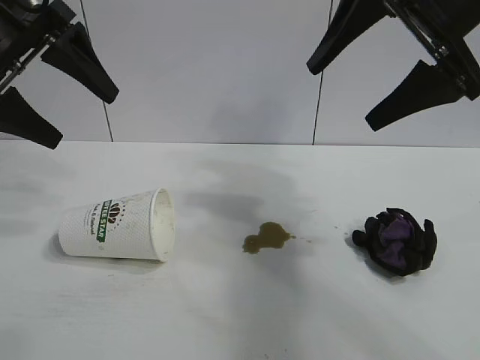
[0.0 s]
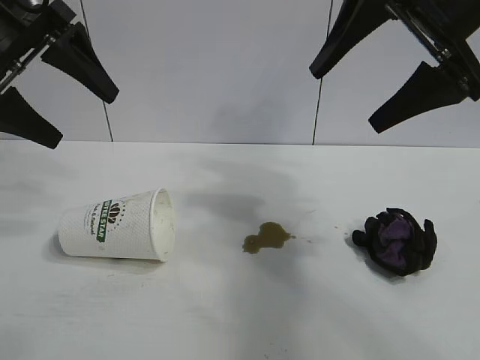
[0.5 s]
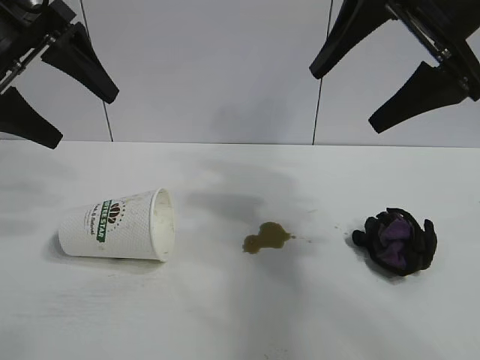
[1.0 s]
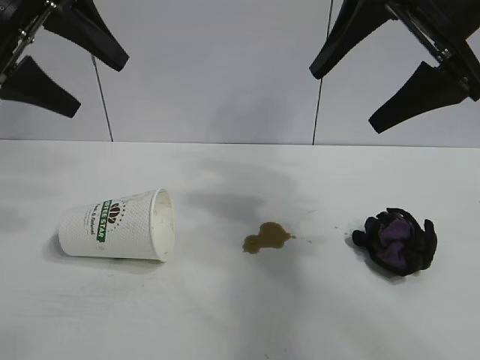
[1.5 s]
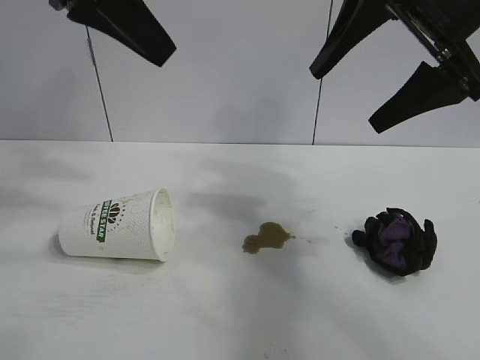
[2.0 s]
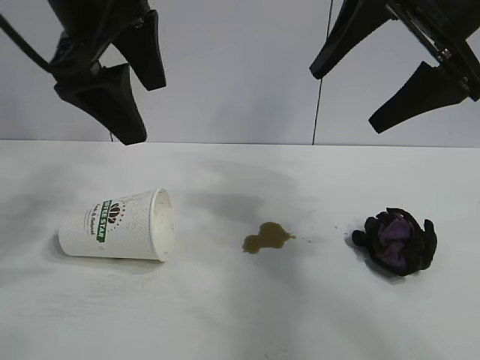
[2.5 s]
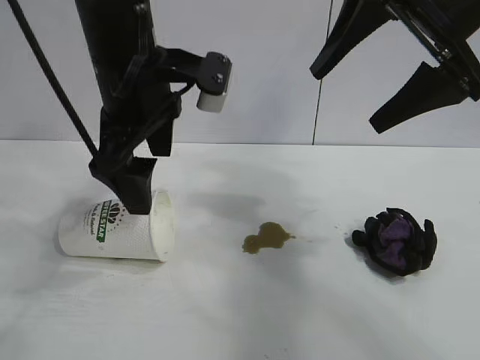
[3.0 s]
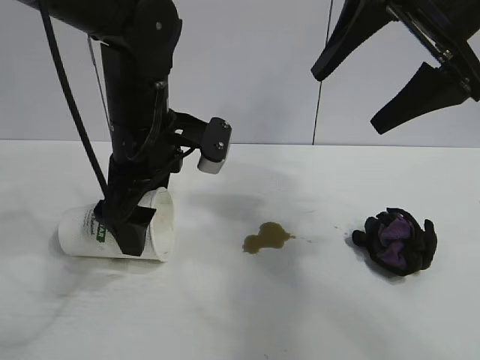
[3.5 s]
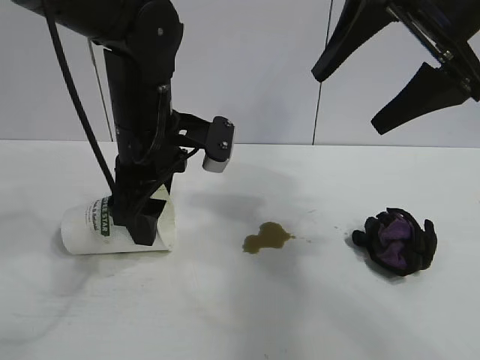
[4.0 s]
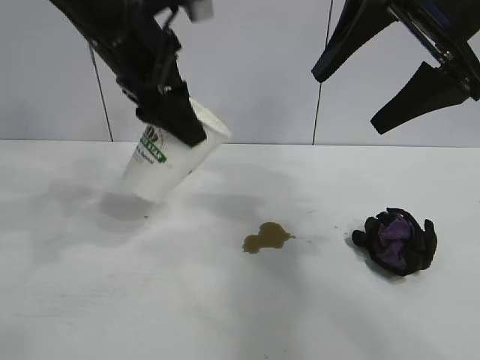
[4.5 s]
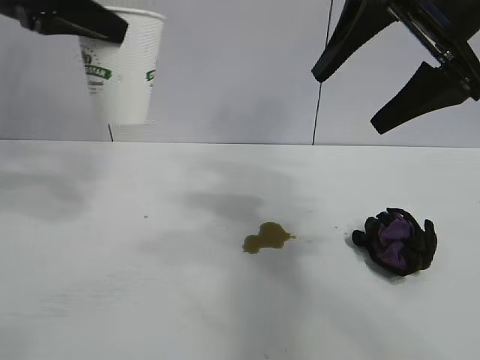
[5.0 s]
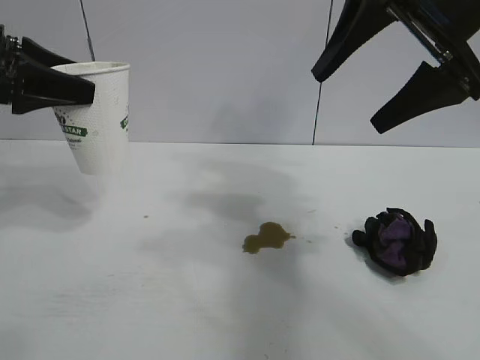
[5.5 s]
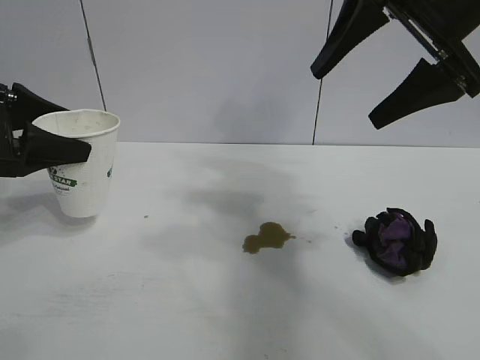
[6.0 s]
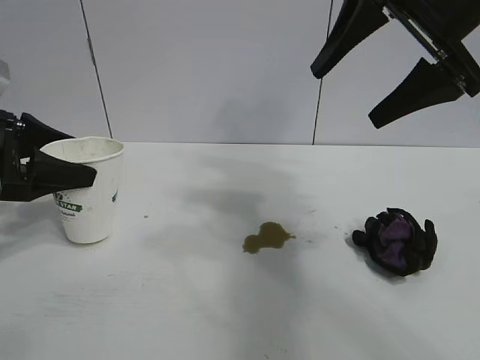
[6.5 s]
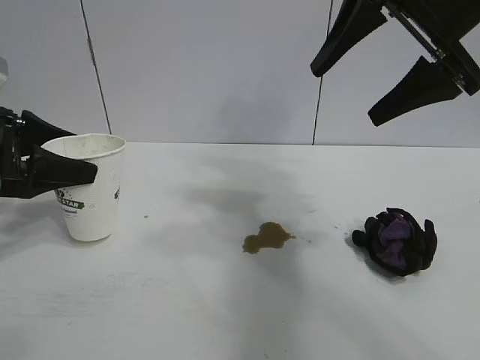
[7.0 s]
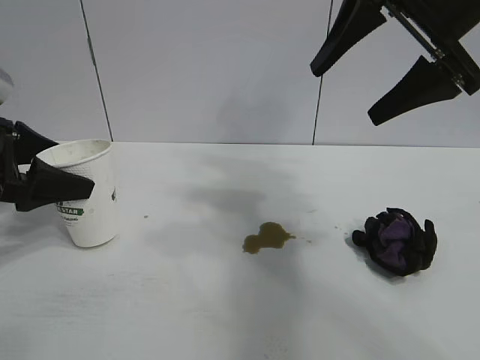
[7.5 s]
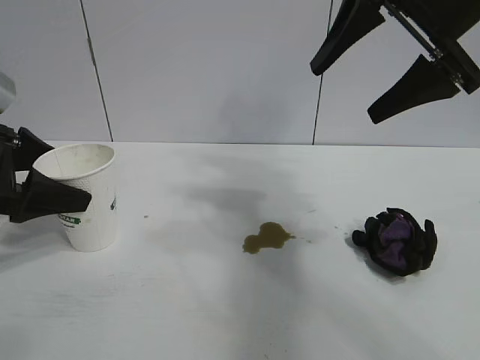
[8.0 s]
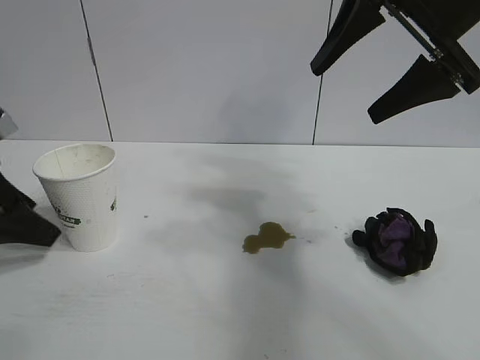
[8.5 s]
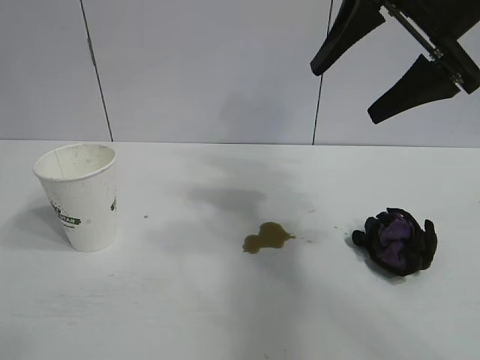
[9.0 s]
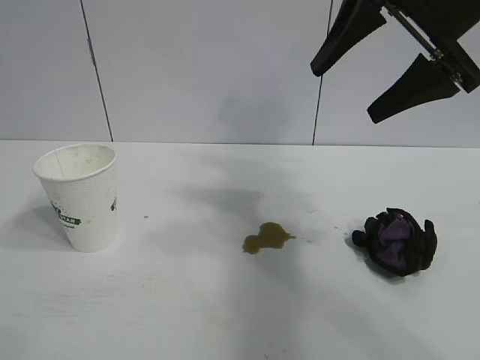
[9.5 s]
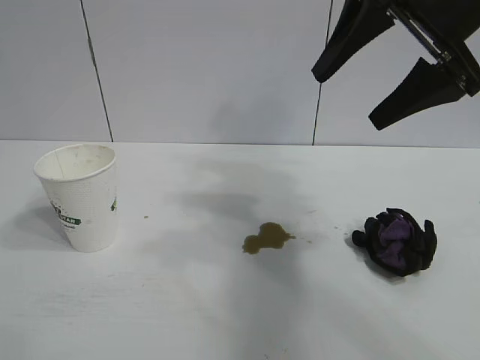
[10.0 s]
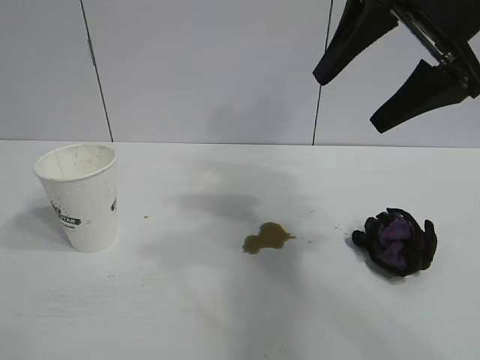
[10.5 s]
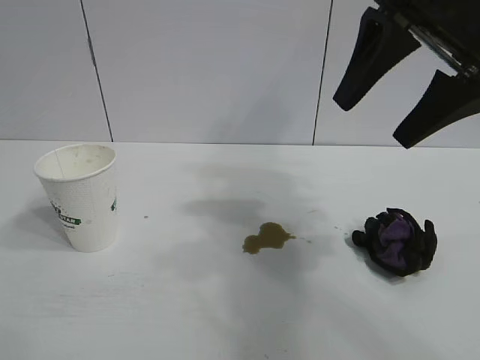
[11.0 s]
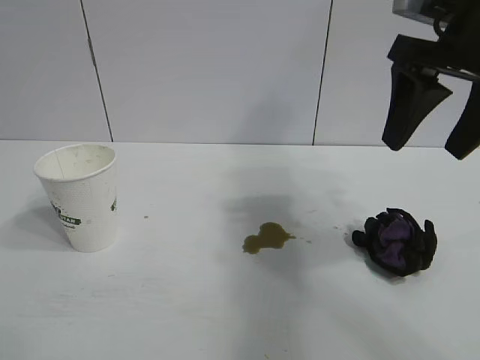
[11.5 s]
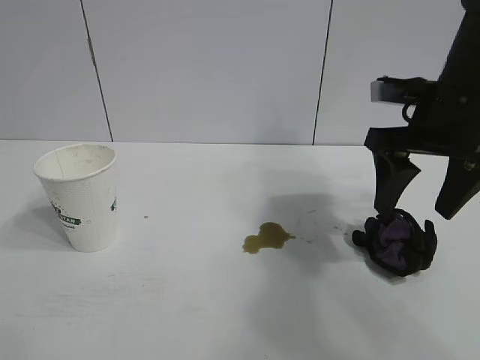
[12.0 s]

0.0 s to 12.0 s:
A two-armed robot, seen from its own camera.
Task of the whole recording: the left gripper pick up the fallen cup and place it upright, the right gripper grasp the black rag and wipe the stain on the table, the right gripper put the black rag back in its original position.
Step, 1.5 to 4.0 s: Grasp the paper cup with left gripper.
Step, 4.5 to 8.0 s: Stand the paper cup upright with left gripper.

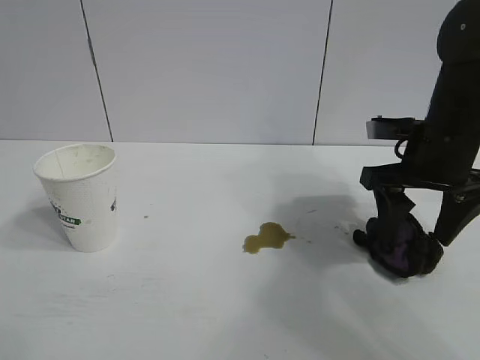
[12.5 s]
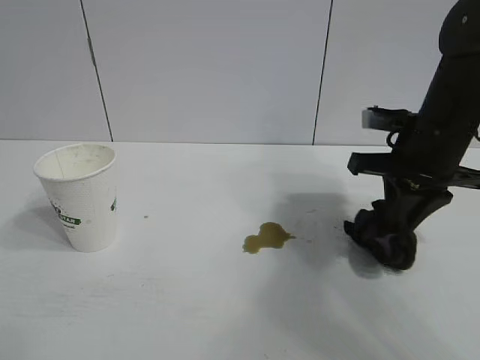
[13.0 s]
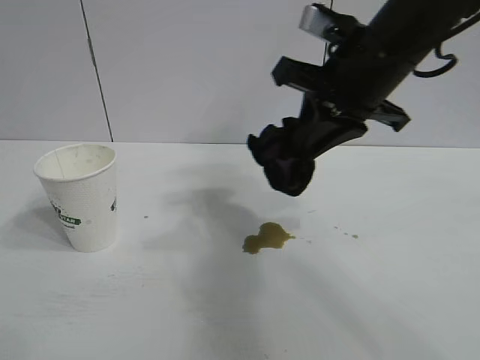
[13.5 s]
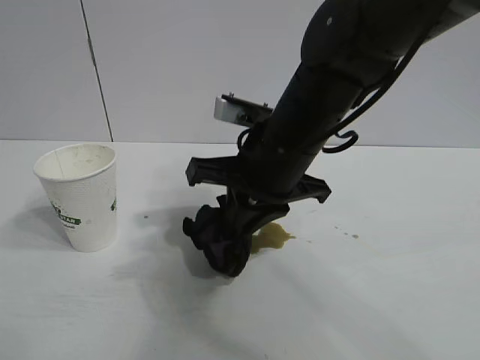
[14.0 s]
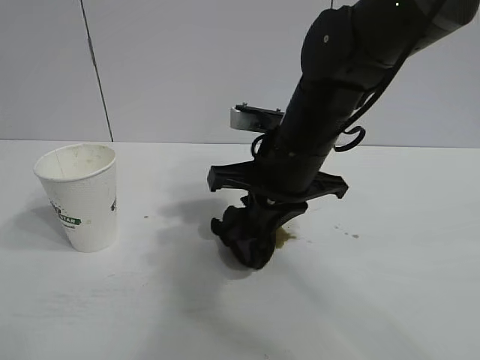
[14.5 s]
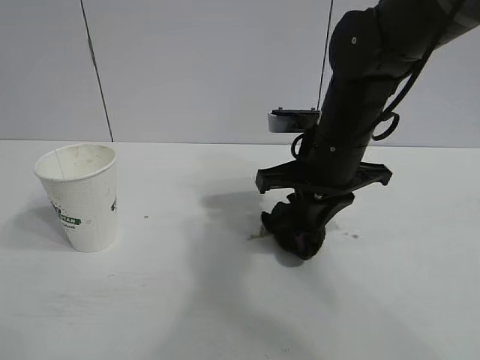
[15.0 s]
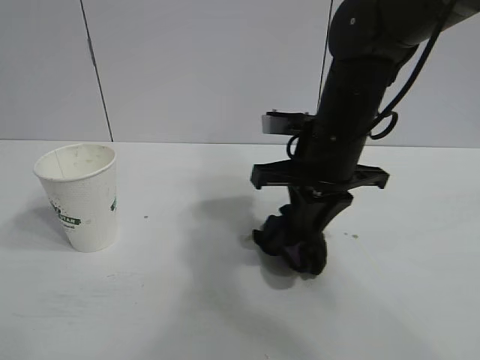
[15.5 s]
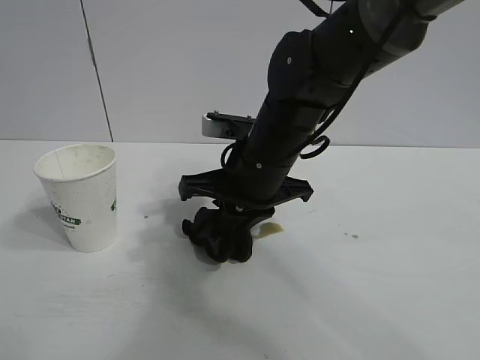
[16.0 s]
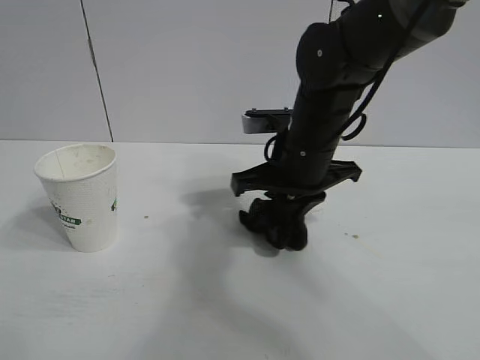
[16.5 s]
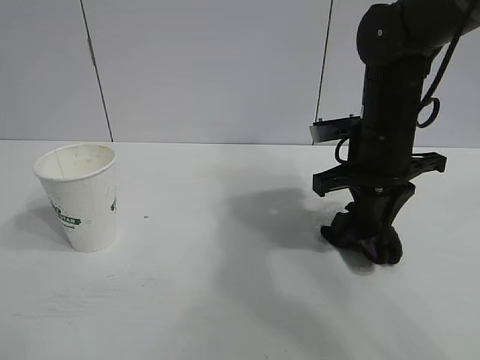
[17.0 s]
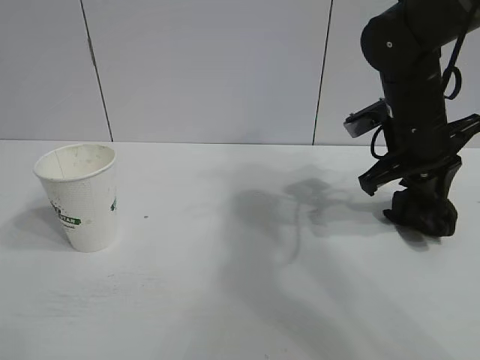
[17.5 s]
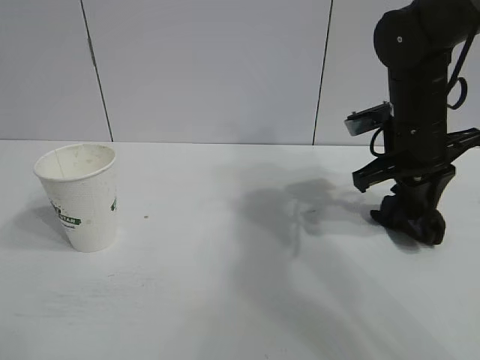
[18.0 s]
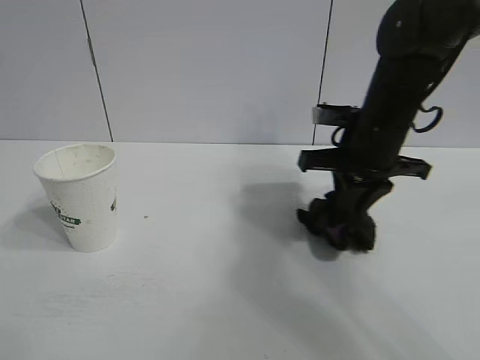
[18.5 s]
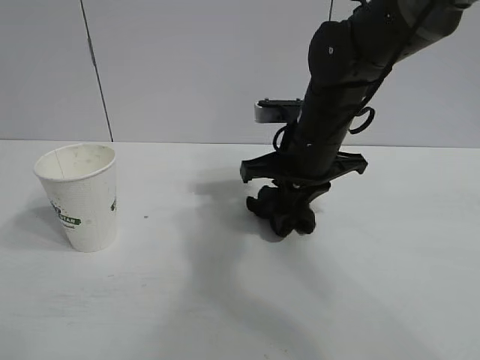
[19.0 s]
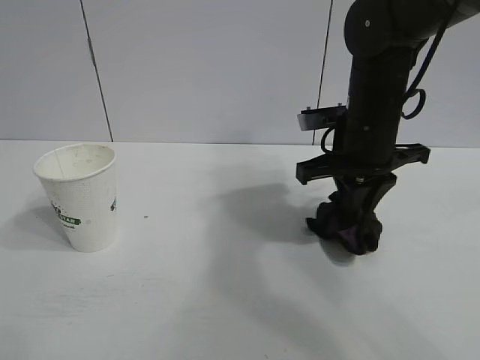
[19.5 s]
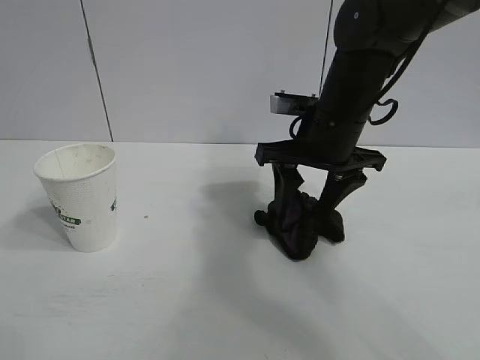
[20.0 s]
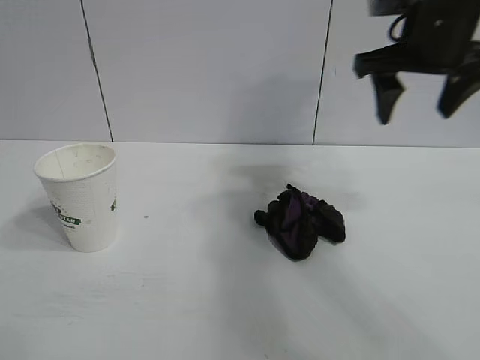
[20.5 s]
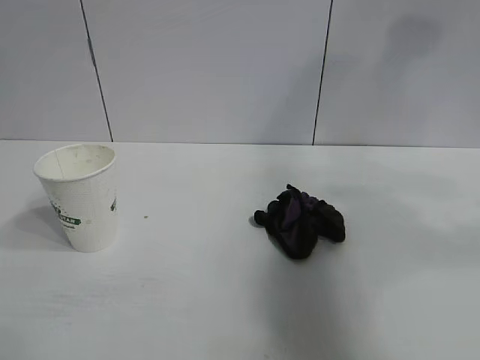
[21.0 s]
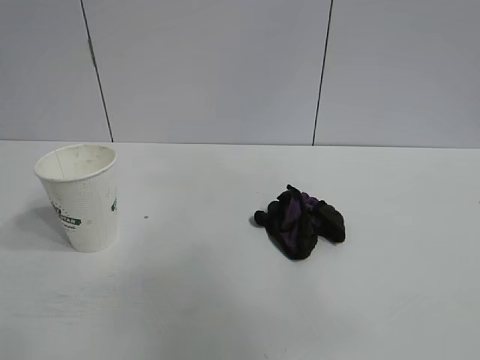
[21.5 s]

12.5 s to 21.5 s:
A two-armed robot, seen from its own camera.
Task of the whole recording: the left gripper pick up the fallen cup and place it upright, the right gripper grasp the black rag and wipe the stain on the table, the right gripper put the black rag back in its original position.
Step, 13.0 to 19.0 s: Wipe the stains off the table with the rag with right gripper.

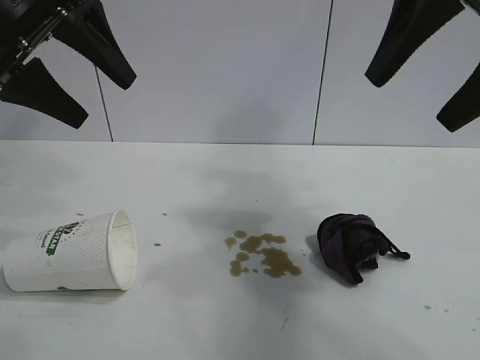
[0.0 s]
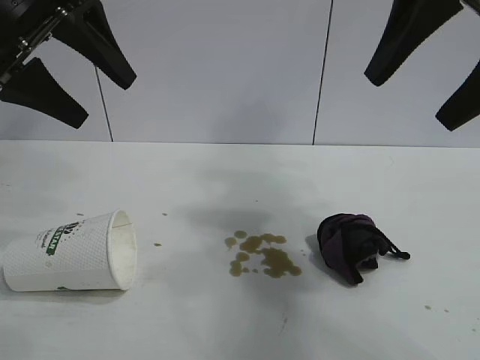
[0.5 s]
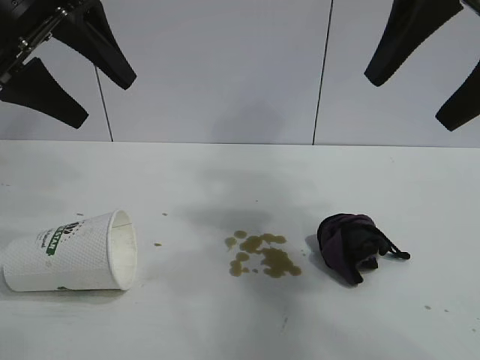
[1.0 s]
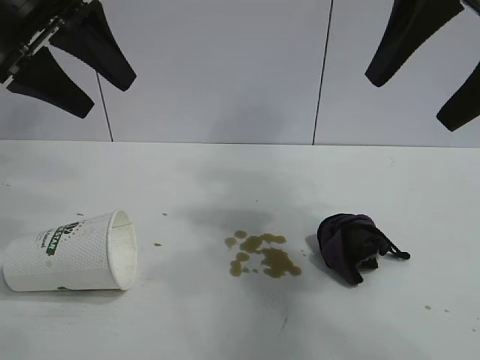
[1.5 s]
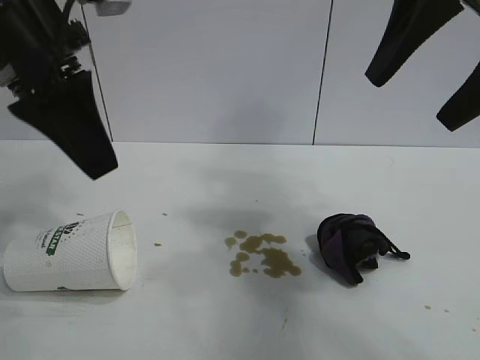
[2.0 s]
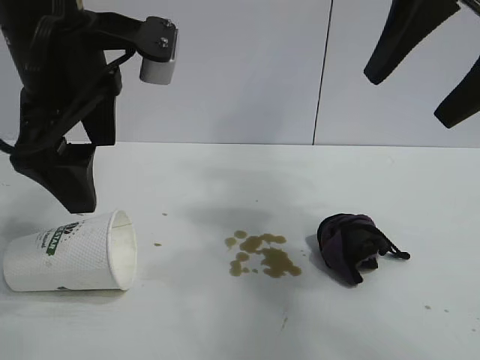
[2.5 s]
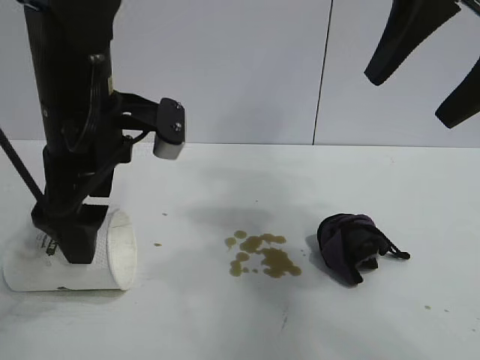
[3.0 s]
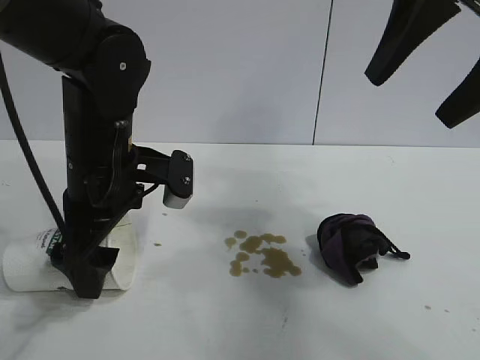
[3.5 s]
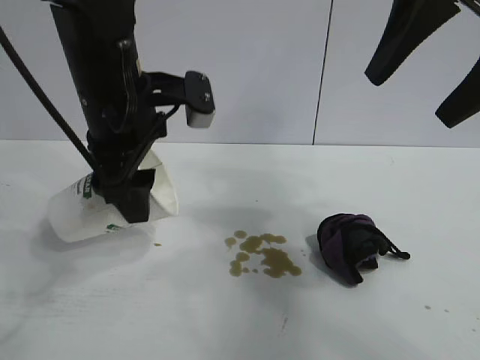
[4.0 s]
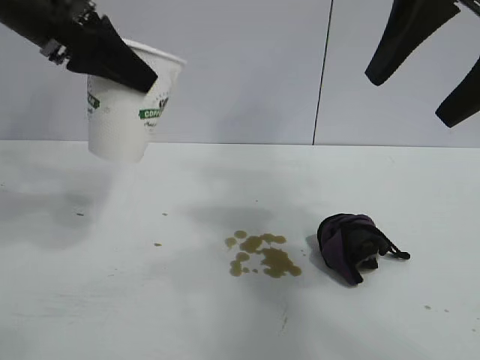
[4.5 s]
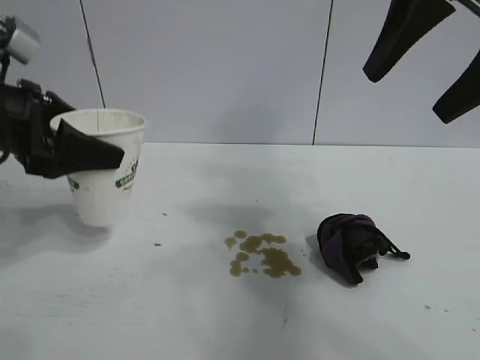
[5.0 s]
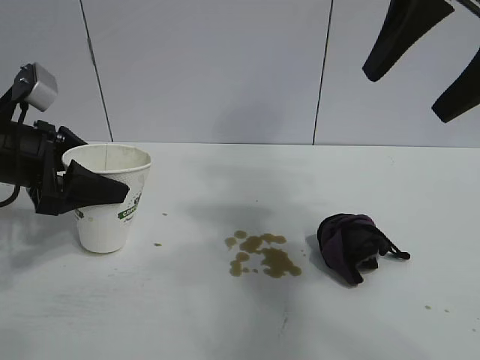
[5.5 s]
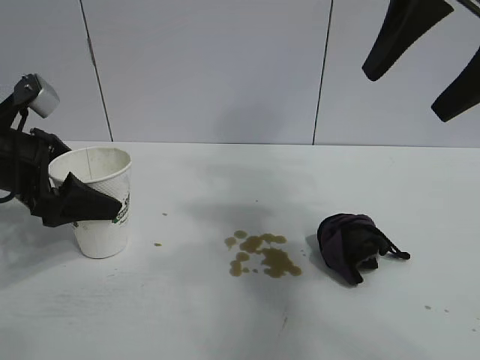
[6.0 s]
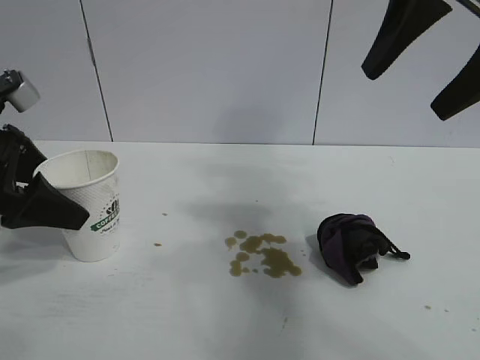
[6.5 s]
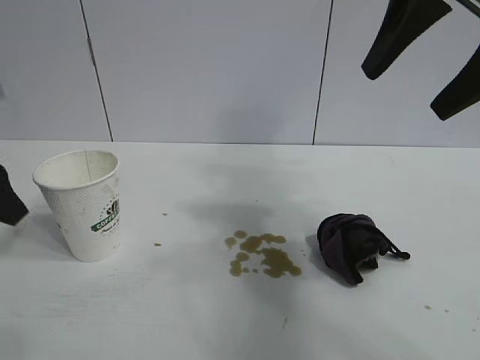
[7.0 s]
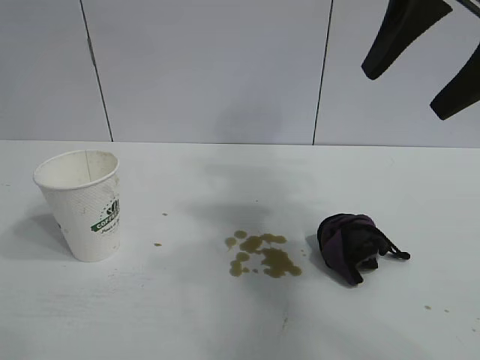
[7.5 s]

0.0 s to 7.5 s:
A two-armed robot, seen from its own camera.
Task of the whole recording: the left gripper pick up the fallen cup and place it upright, the right gripper grasp the black rag and wipe the stain on the table, the right gripper put the black rag back in its original position.
Step, 0.0 to 3.5 s: Grasp the paper cup with left gripper.
Step, 4.0 to 6.0 s: Stand the paper cup upright with left gripper.
